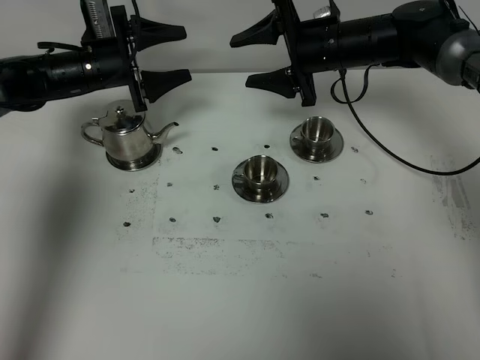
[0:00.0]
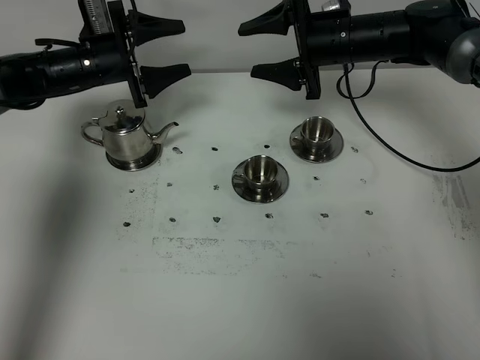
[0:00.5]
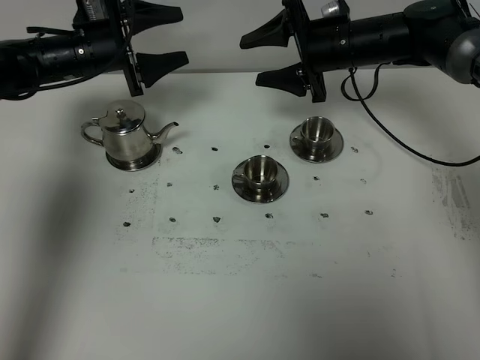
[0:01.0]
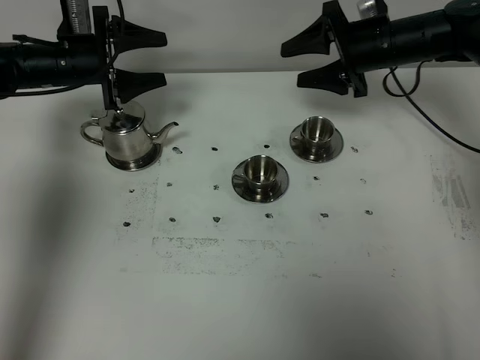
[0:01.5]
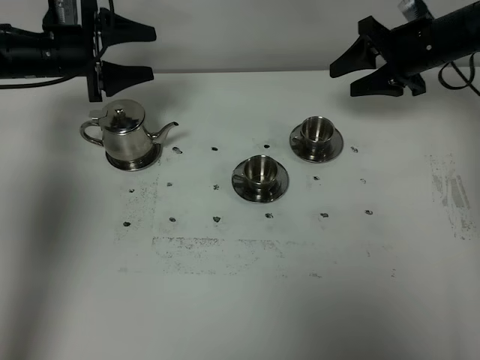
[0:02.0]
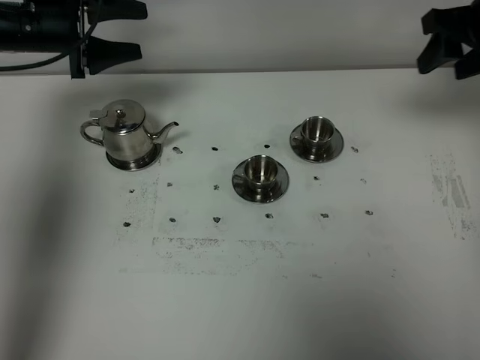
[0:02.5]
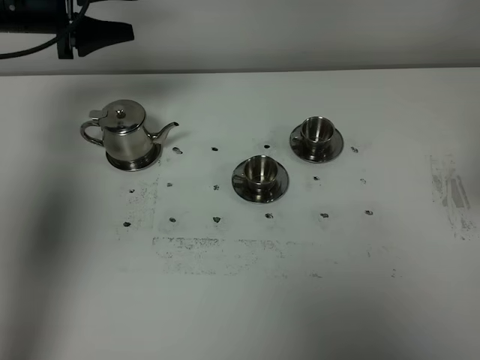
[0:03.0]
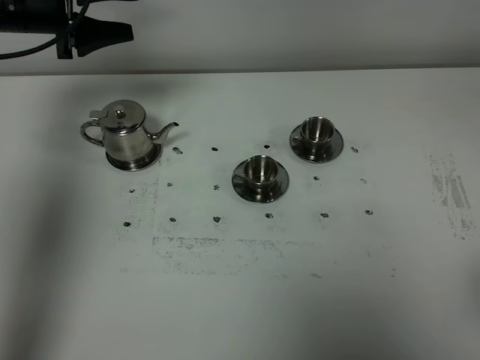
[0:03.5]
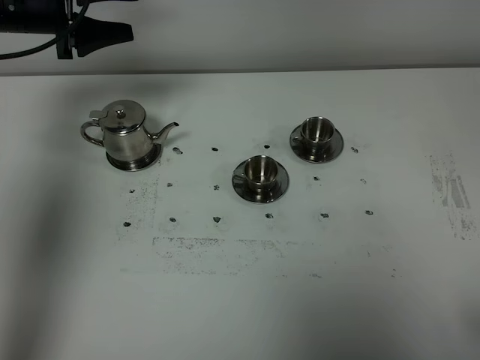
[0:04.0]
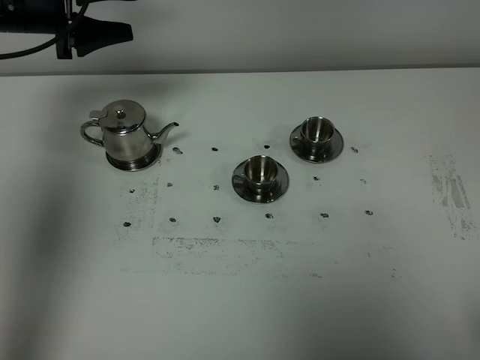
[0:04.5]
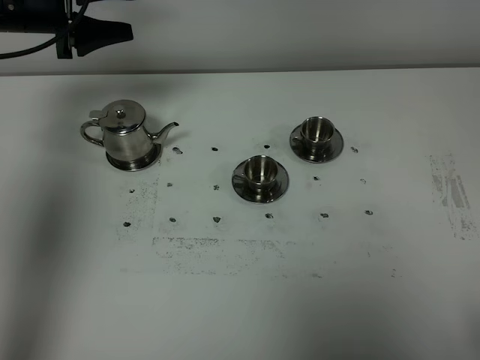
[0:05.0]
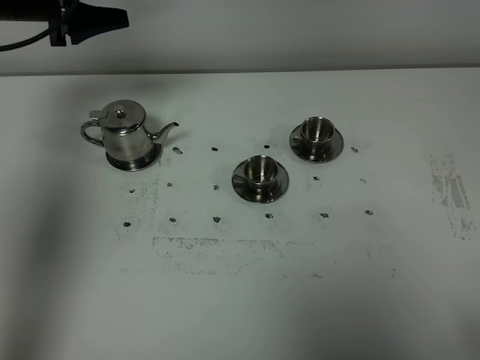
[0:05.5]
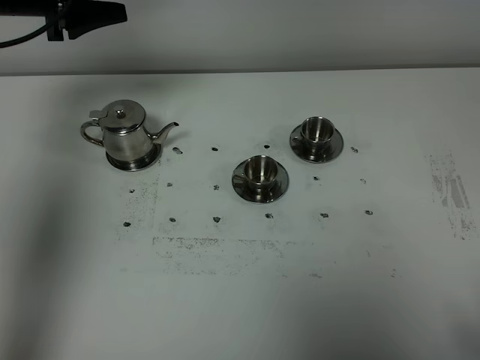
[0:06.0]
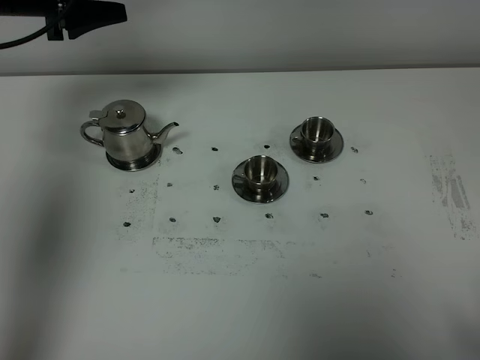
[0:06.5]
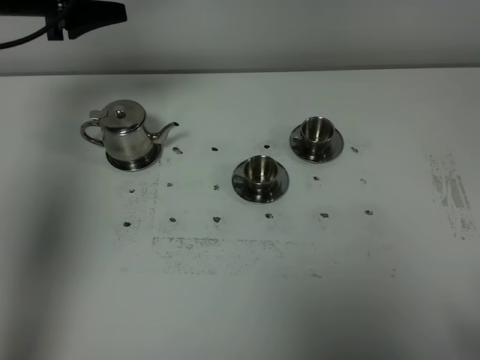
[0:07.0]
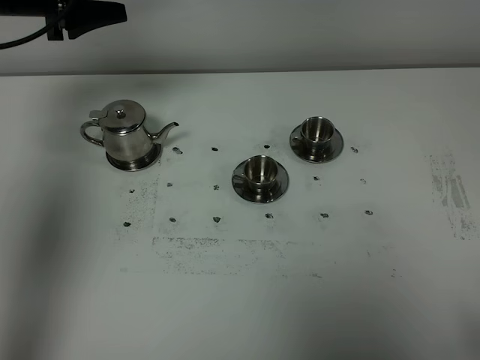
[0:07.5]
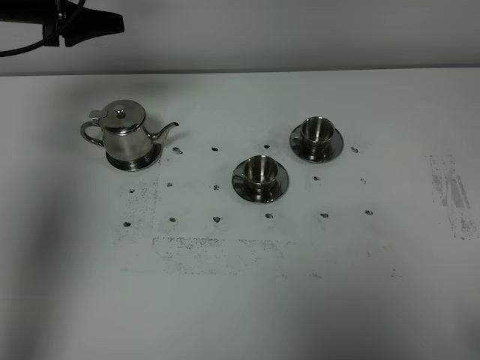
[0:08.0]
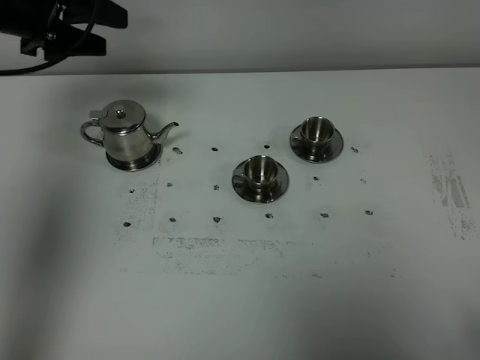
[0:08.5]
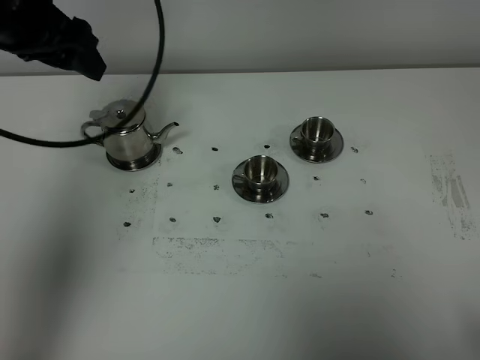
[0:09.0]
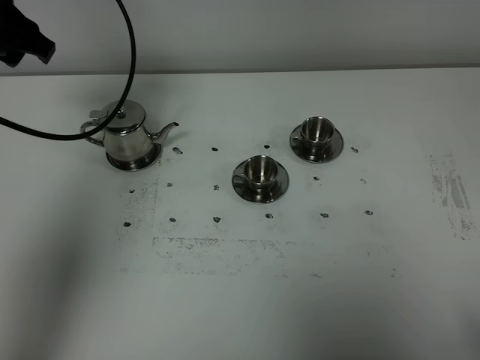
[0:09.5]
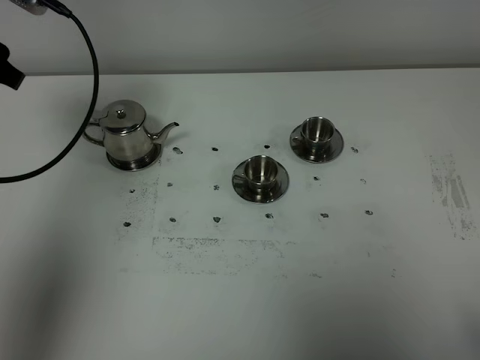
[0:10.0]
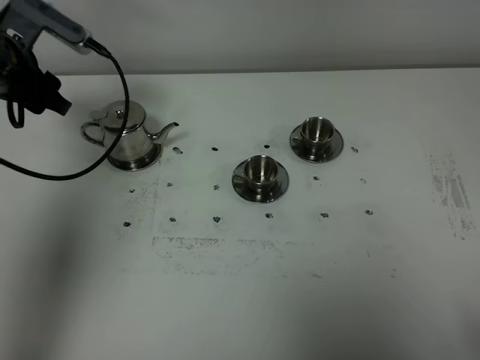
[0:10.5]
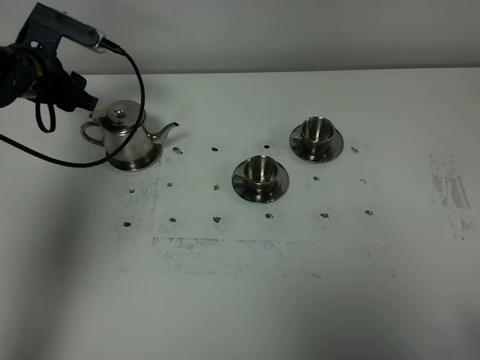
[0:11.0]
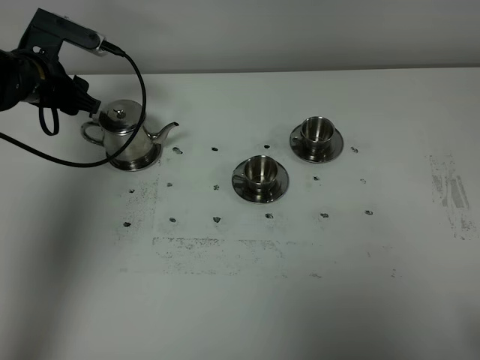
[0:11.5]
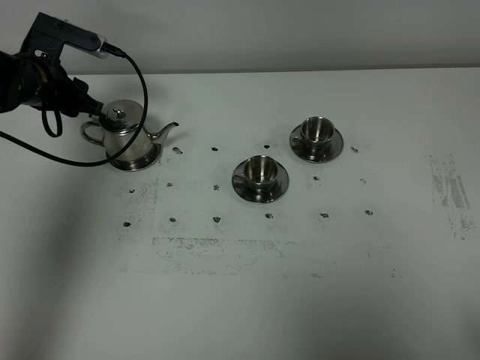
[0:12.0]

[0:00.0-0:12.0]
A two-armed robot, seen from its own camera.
Task of the whole recording: grasp the stainless steel teapot and pour the tea into the two stainless steel teacups one by one, put the stainless steel teapot back in its original place.
0:00.0 to 0:02.0: The right gripper heads to the right, covering roughly 10 cm, and closes up. Meanwhile the left gripper moves some 5 cm.
0:02.0 to 0:04.0: The right gripper moves backward, some 50 cm, while the left gripper moves upward, about 10 cm.
0:04.0 to 0:06.0: The grippers move only a little.
0:06.0 to 0:08.0: Both grippers stay put.
0:08.0 to 0:10.0: The left gripper heads backward, covering roughly 10 cm.
0:10.0 to 0:12.0: The left gripper goes about 20 cm downward and forward.

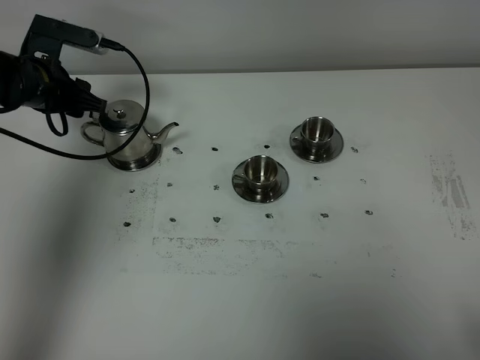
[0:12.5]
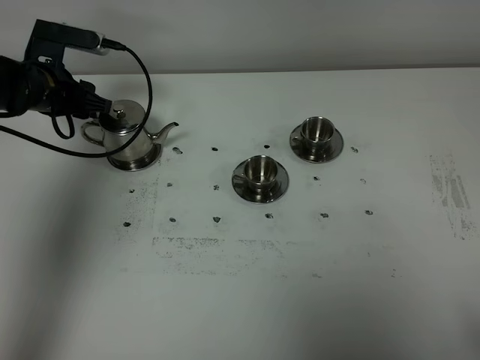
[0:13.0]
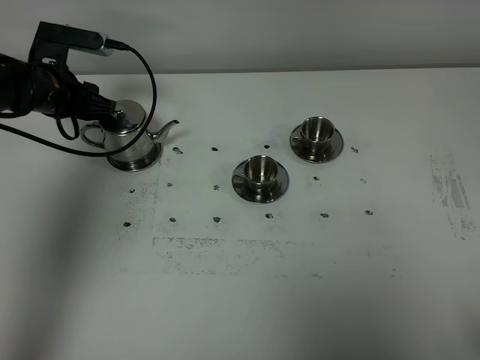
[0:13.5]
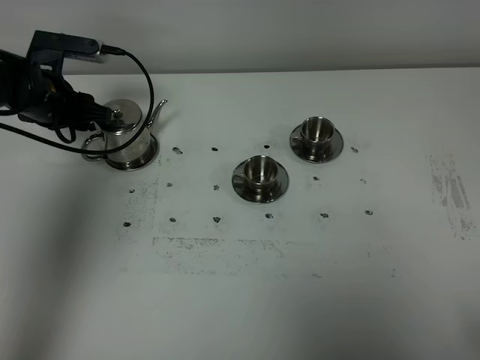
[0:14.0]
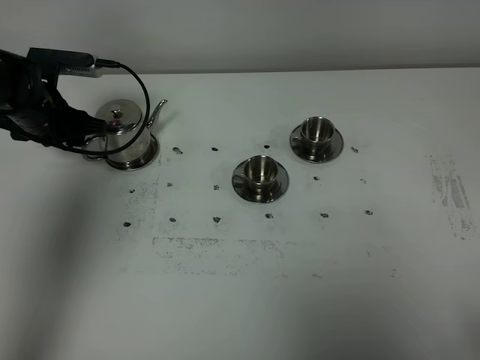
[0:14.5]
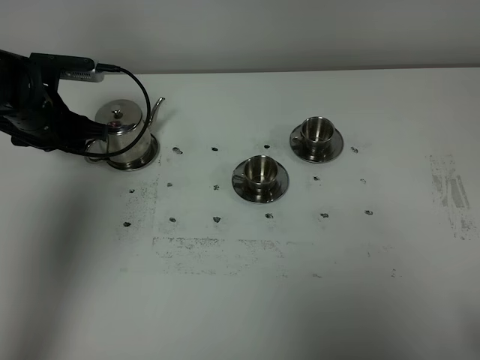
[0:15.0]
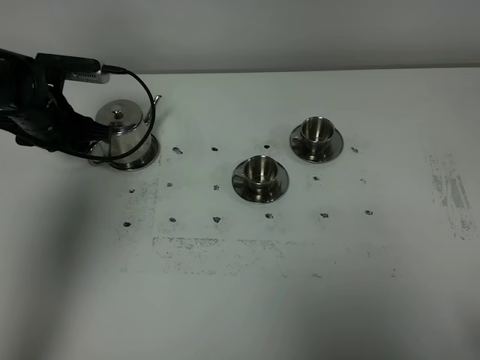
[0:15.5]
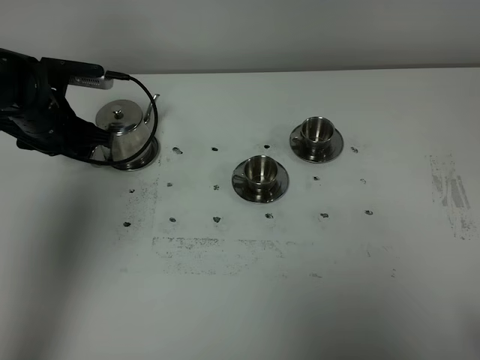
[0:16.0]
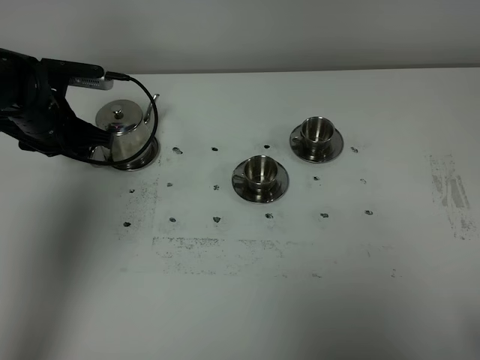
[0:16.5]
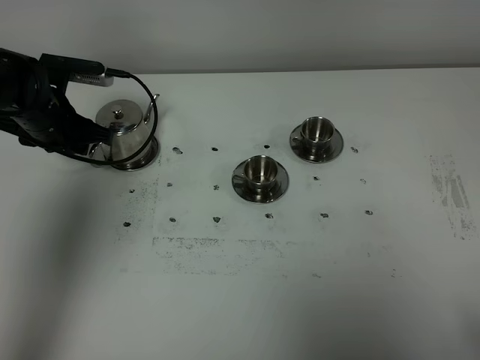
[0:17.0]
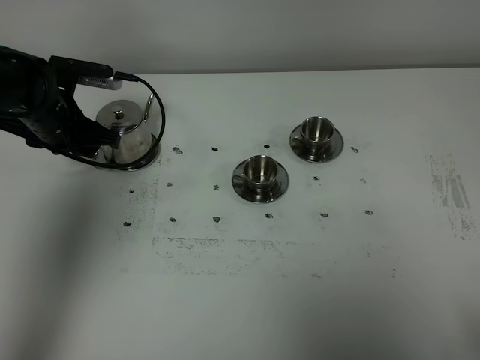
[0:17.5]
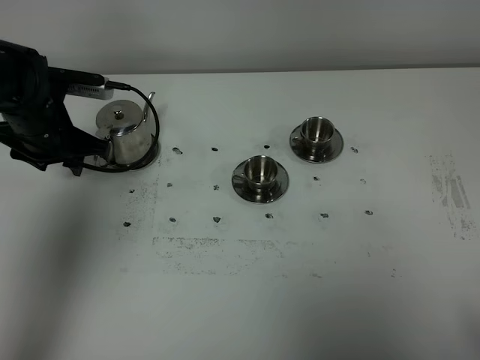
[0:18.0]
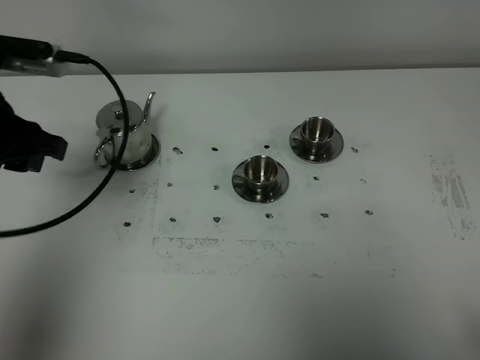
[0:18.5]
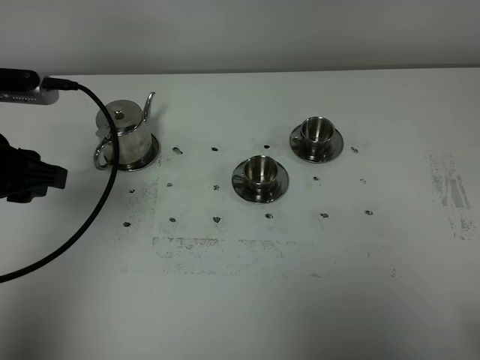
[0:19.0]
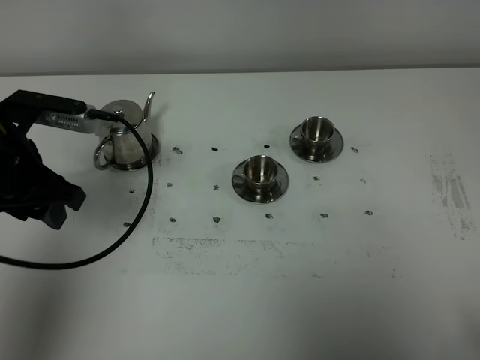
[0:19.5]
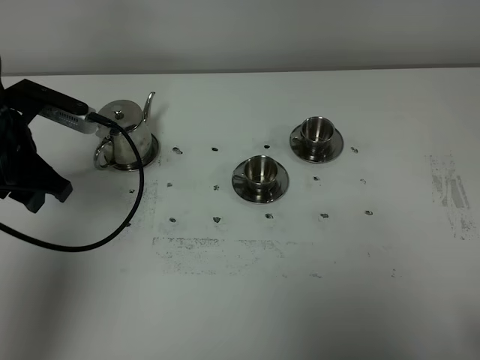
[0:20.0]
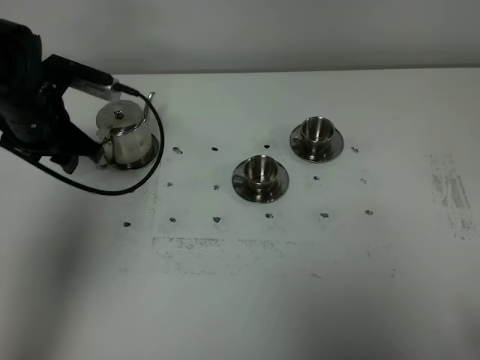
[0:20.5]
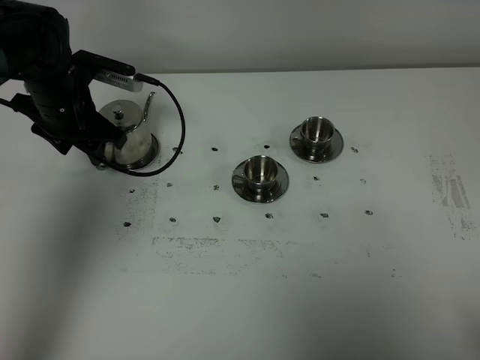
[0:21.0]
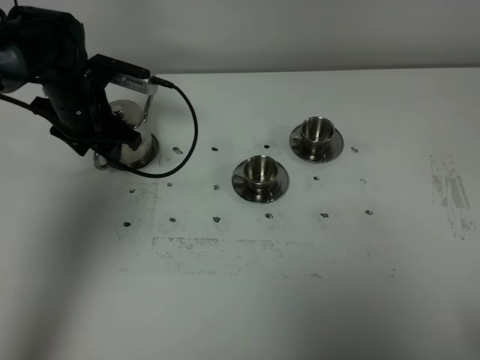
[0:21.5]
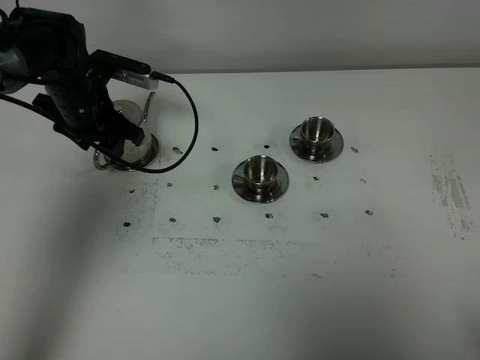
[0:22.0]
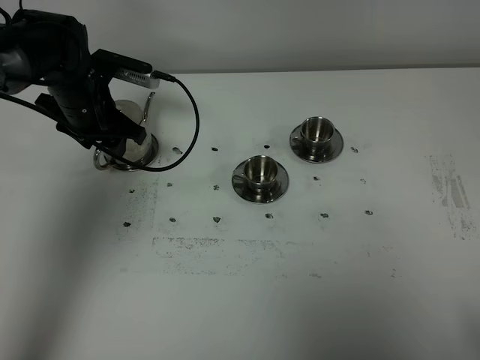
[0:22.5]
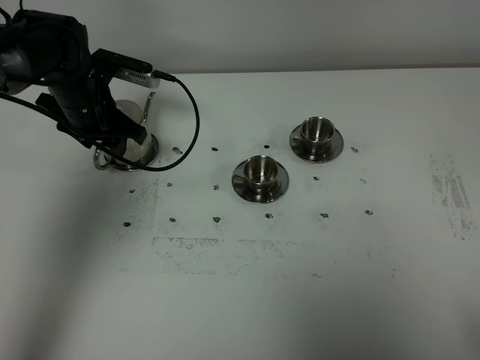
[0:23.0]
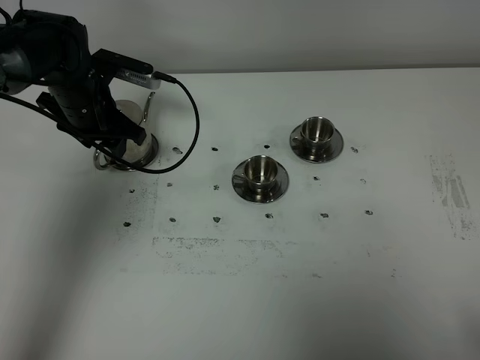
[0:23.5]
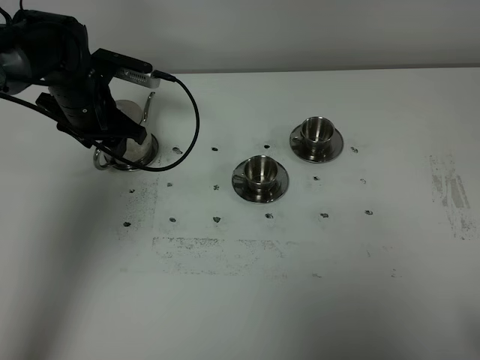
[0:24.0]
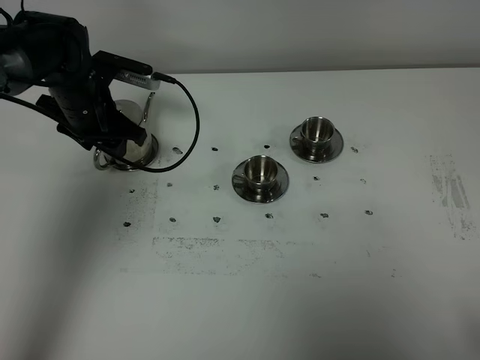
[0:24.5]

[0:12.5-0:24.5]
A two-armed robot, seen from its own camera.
Task of the whole recording: grasp the stainless steel teapot and pour the tea into the two stainless steel teacups one by one, put the stainless steel teapot back in its original place.
0:14.5 to 0:16.5: There are only small adjustments of the grippers.
0:16.5 to 0:18.5: The left gripper shifts approximately 20 cm backward and upward.
0:18.5 to 0:20.5: The left gripper heads forward and downward, covering approximately 15 cm.
0:20.5 to 0:22.5: The left gripper heads forward, covering approximately 5 cm.
0:22.5 to 0:24.5: Both grippers stay about where they are.

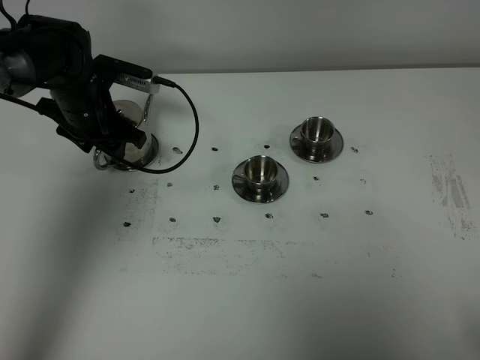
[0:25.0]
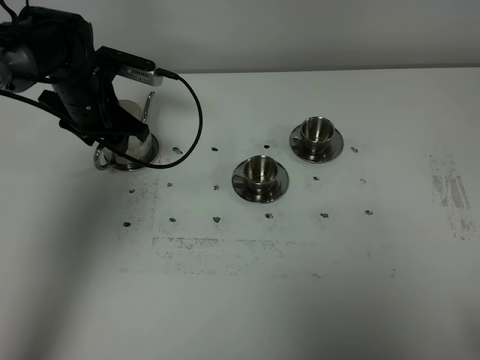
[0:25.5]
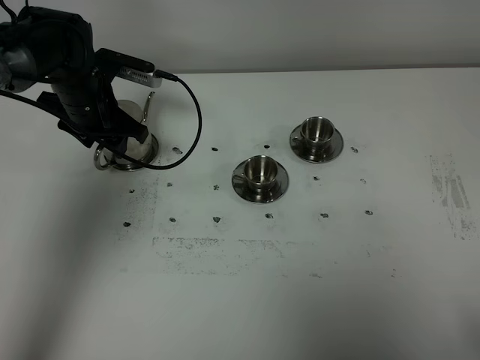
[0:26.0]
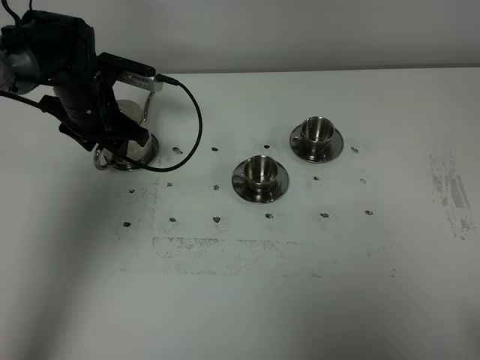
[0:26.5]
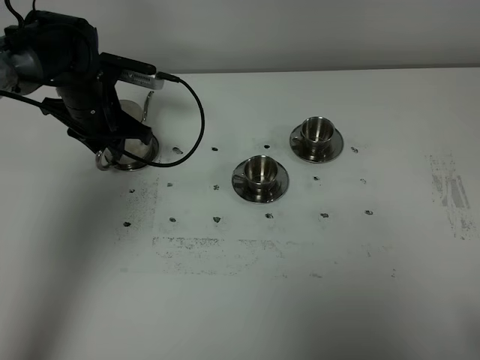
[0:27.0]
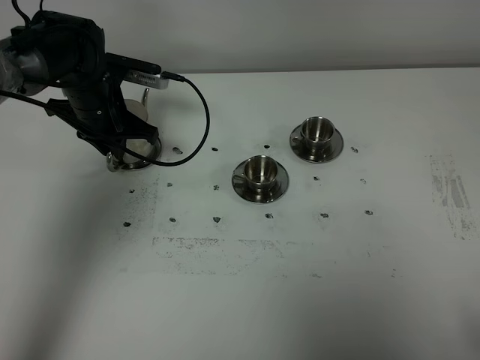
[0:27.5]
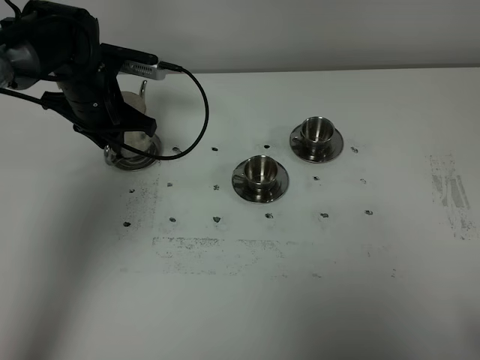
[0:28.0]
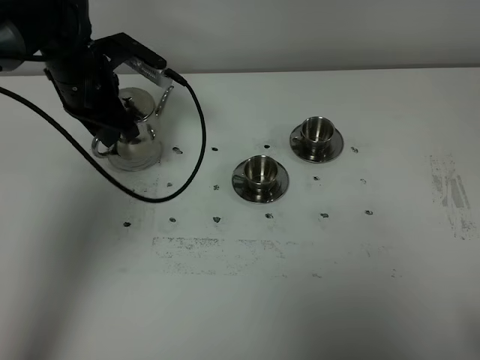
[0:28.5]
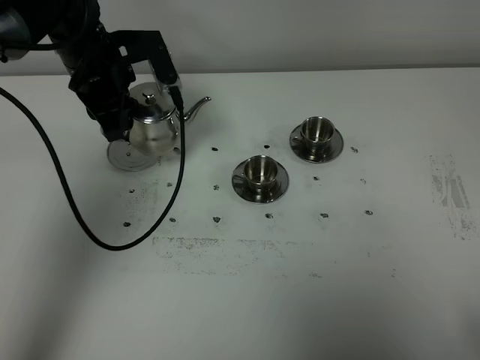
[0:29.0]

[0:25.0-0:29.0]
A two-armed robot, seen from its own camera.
Task of the whole recording: grasp the stainless steel teapot and pour the tea into the two stainless steel teacups one by one, put the stainless steel teapot back in its original place.
Step, 0:25.0 to 0:28.0: Pick up the teapot with the left gripper.
0:25.0 to 0:27.0: The left gripper closes up.
0:27.0 to 0:29.0: The left gripper is displaced upward by approximately 10 cm.
